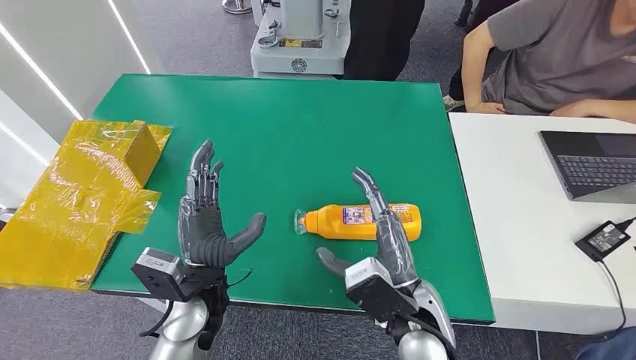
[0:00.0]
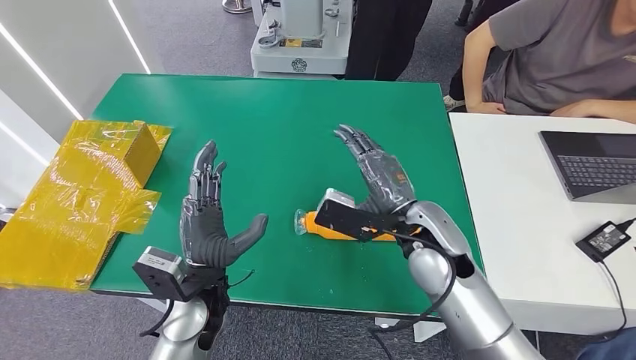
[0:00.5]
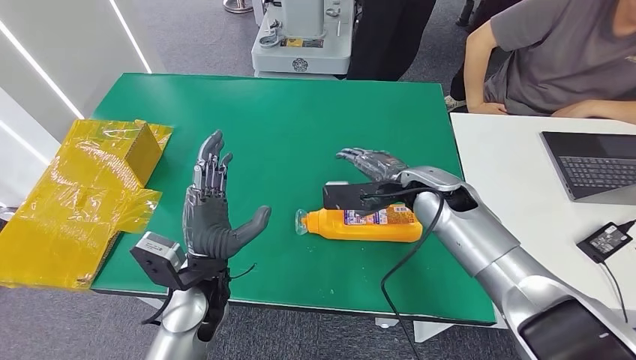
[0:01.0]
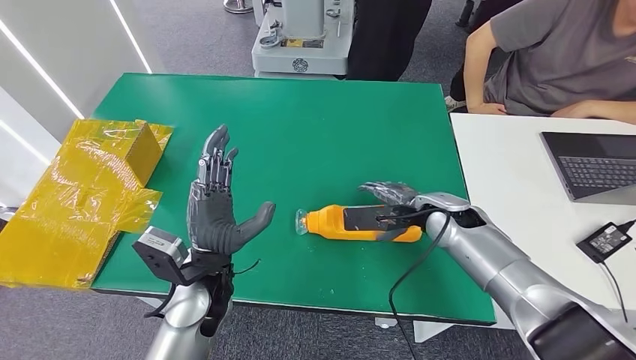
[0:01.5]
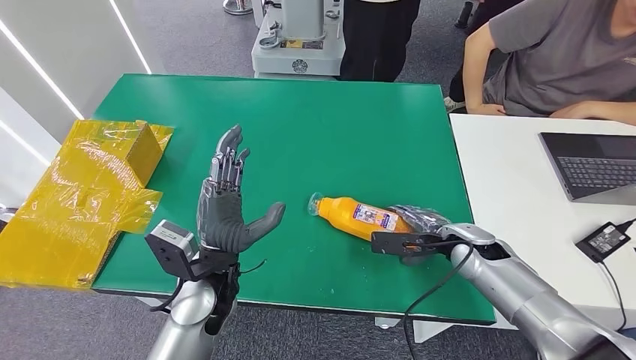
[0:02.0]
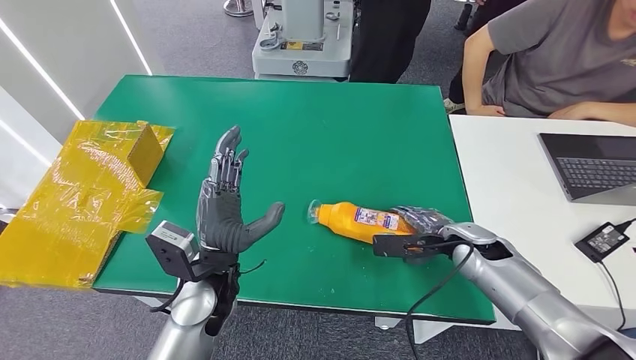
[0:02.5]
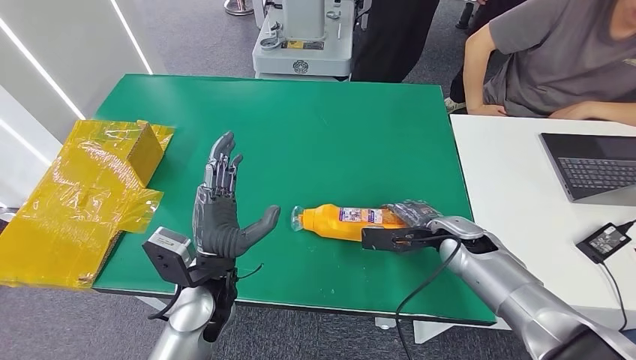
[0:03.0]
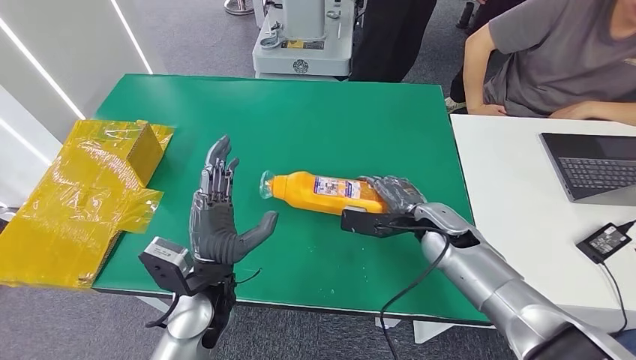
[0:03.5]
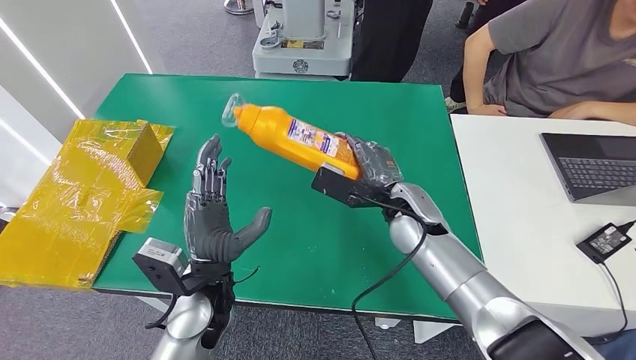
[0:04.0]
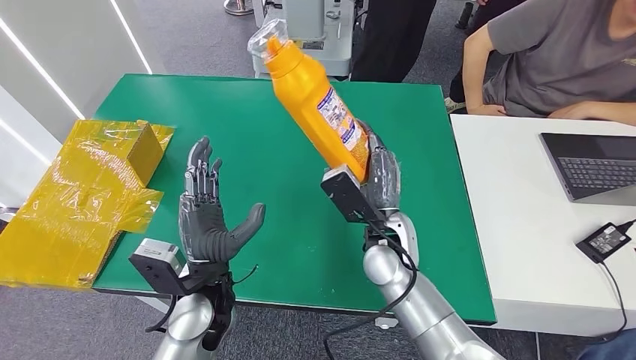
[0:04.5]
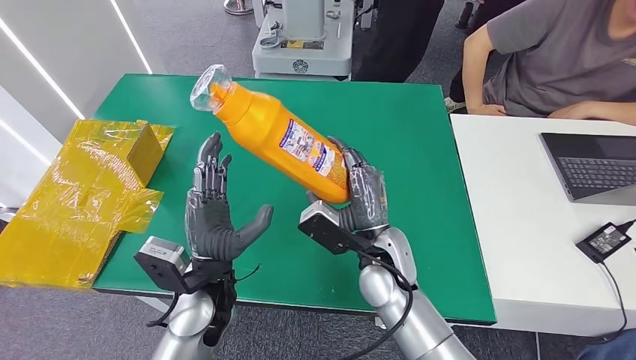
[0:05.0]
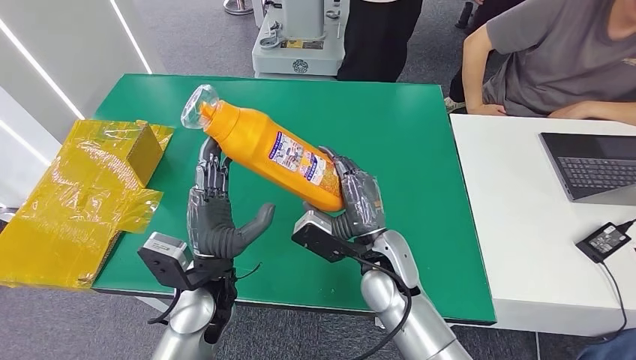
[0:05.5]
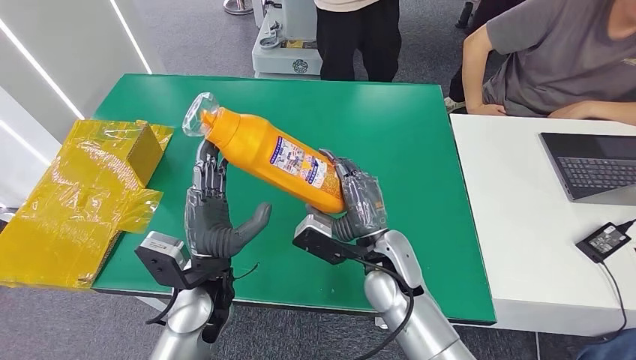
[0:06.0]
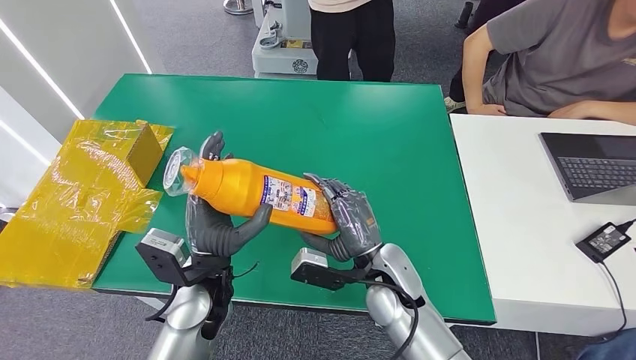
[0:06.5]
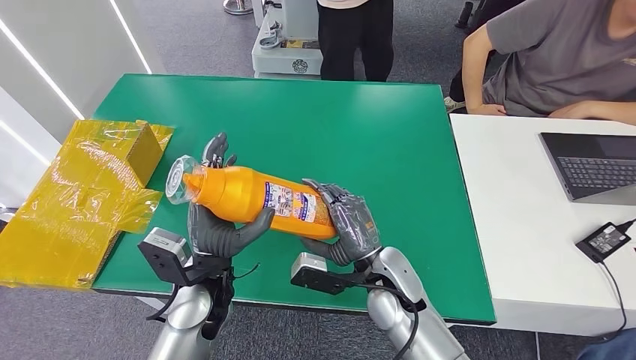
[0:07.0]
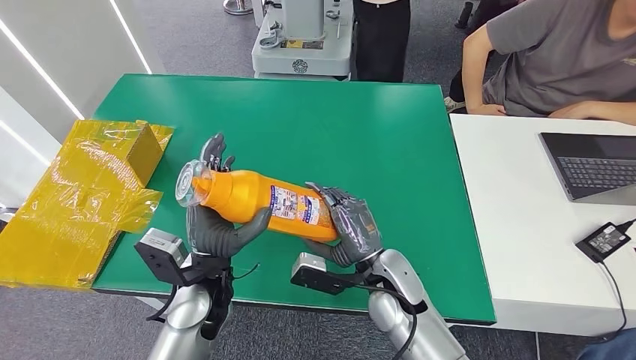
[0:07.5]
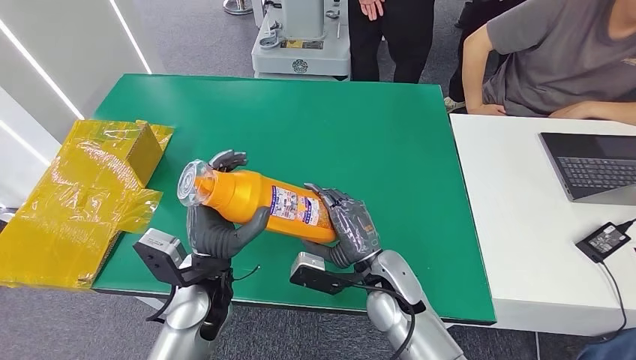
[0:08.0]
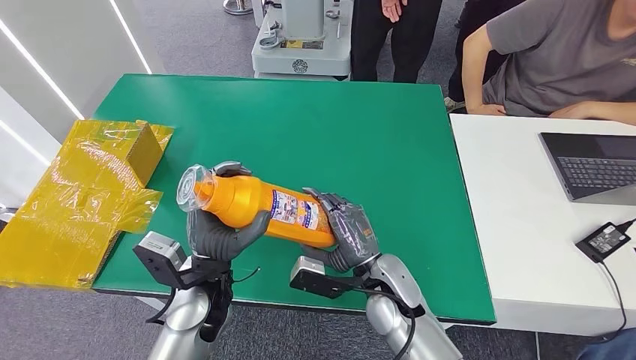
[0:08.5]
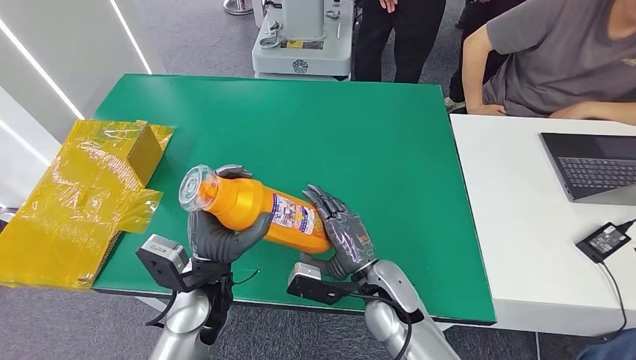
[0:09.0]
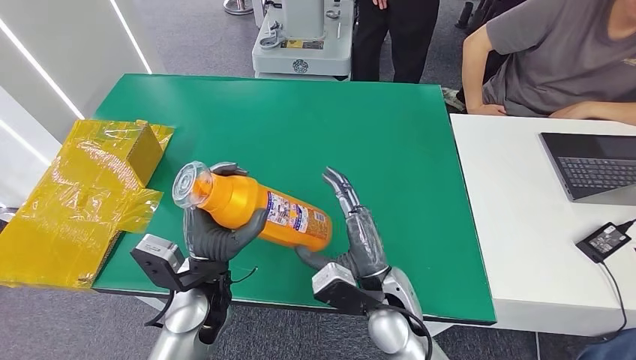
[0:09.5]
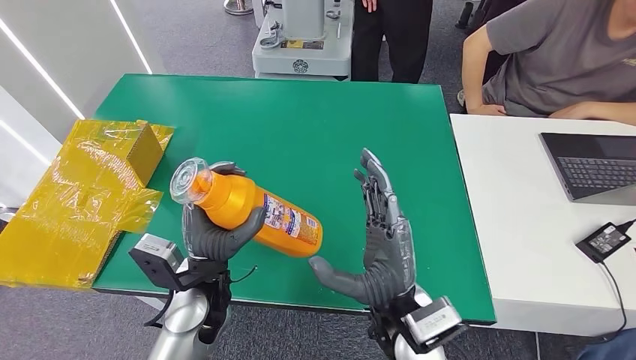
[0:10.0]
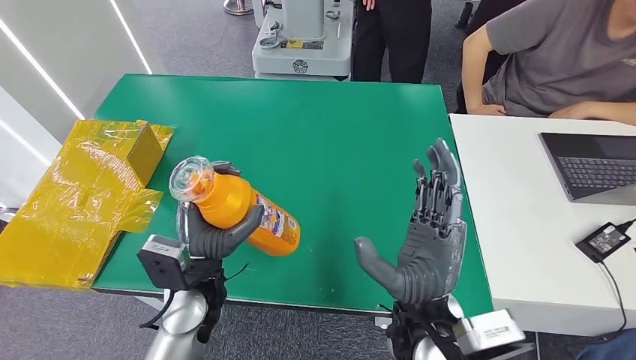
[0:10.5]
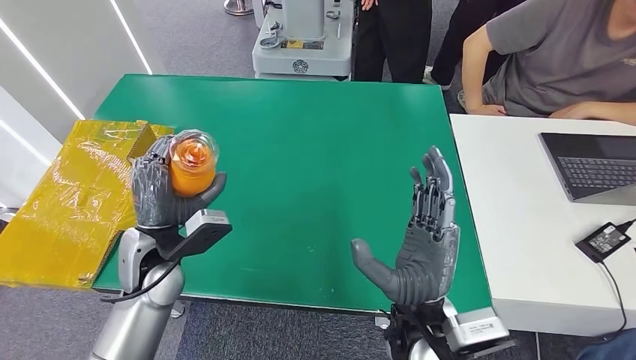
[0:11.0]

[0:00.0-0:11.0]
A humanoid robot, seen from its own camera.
Step, 0:00.0 to 0:04.5: Pick up the bottle from the table.
0:02.0 to 0:03.5: The right hand travels to the left by approximately 5 cm.
0:03.5 to 0:05.5: The right hand travels to the left and backward by approximately 15 cm.
0:05.5 to 0:09.0: There are only small adjustments of the hands.
0:09.0 to 0:11.0: The left hand travels to the left by roughly 10 cm; the right hand moves upward and backward, roughly 10 cm.

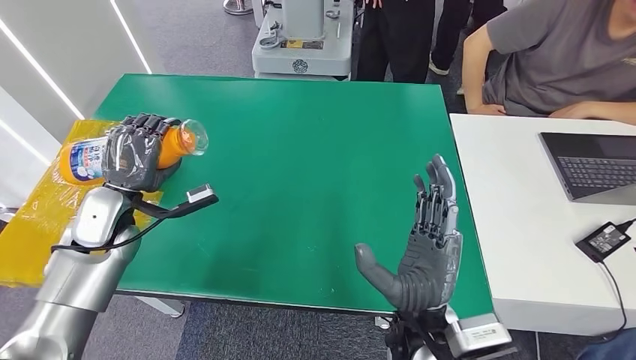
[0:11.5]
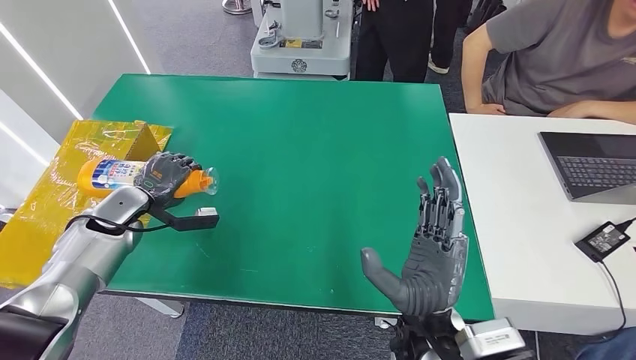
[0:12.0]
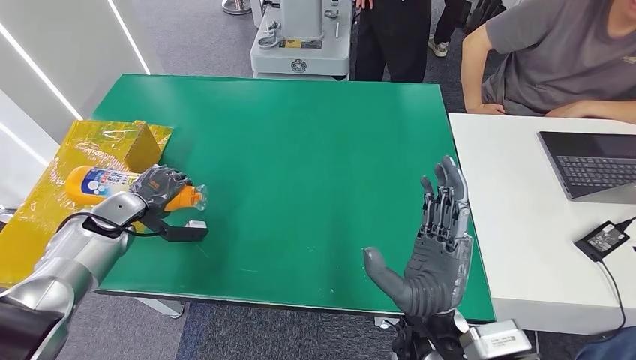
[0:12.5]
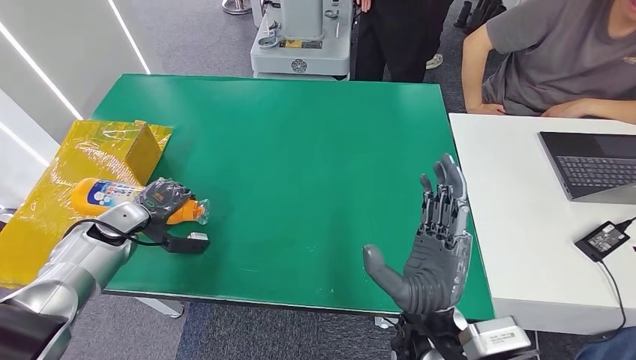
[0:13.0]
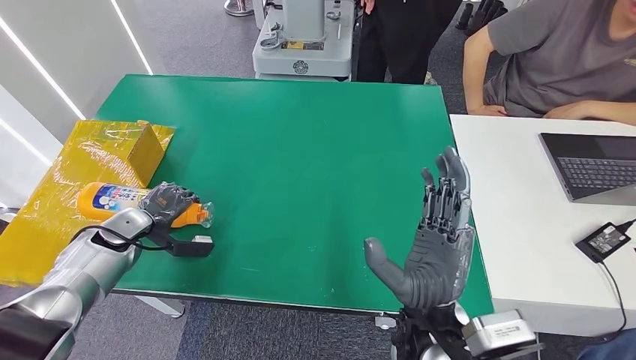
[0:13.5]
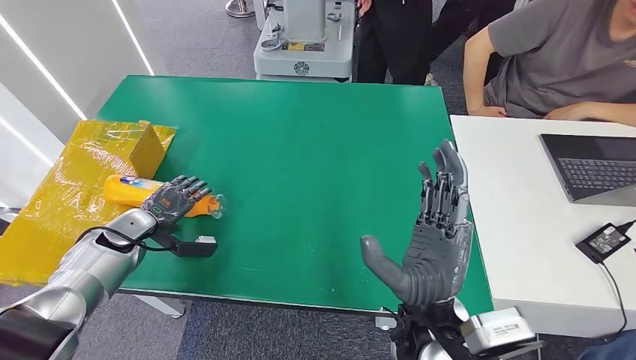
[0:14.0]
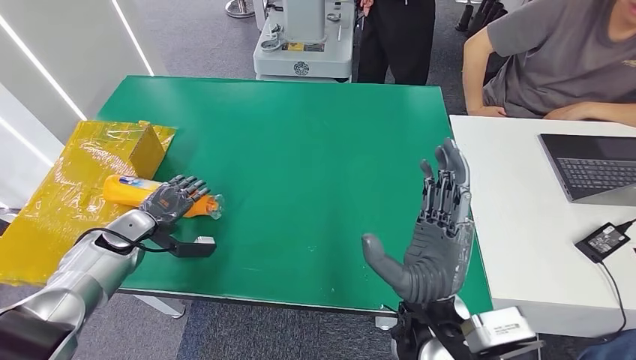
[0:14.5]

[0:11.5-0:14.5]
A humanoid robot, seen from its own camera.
Step, 0:11.5 to 0:14.5: Turn the bottle to the front side.
0:11.5 to 0:13.0: The left hand travels downward and to the left by about 10 cm.
0:13.0 to 0:14.5: The hands move only a little.
